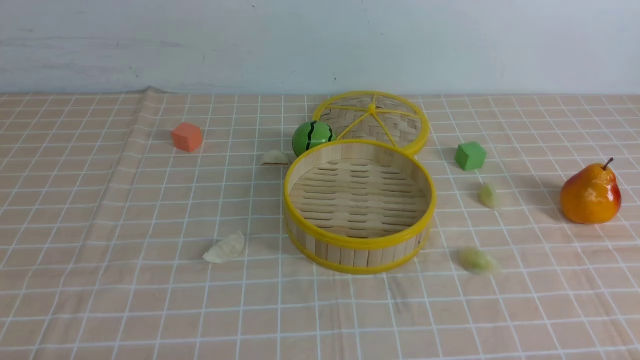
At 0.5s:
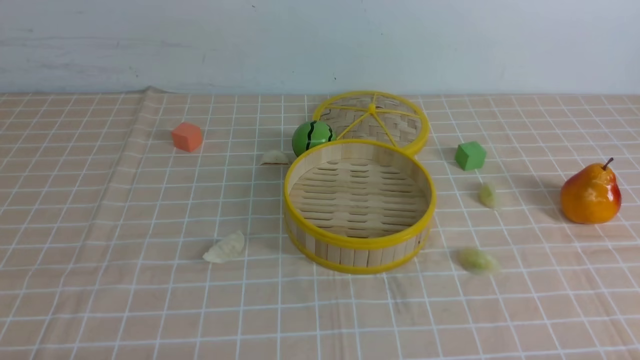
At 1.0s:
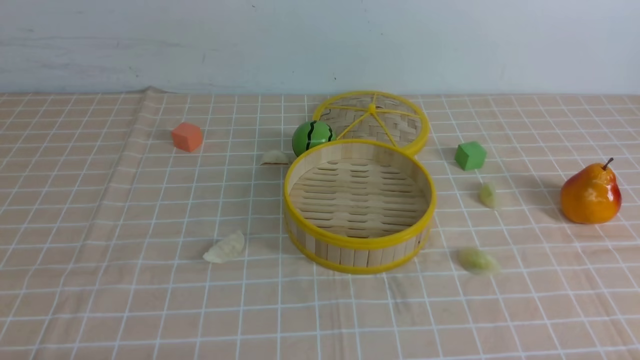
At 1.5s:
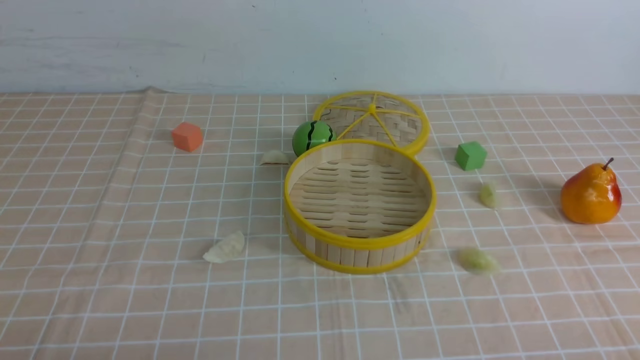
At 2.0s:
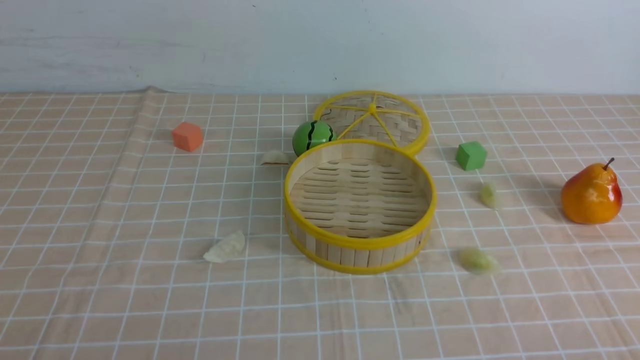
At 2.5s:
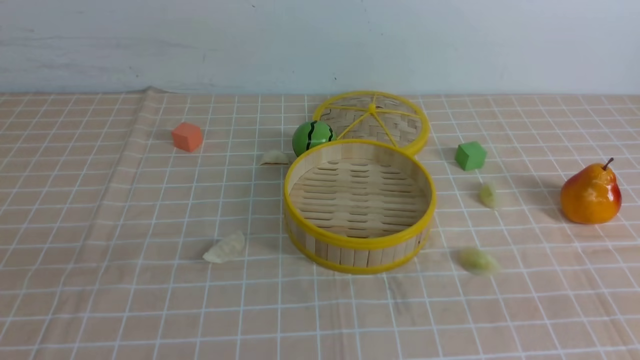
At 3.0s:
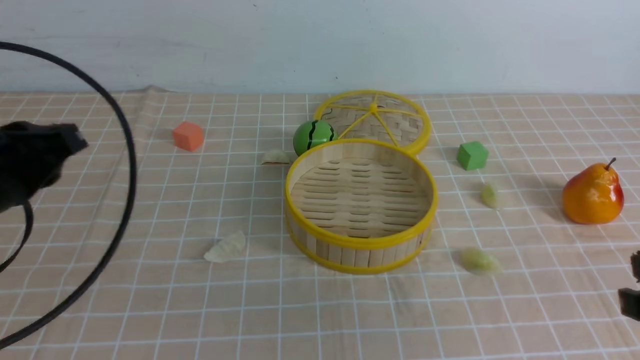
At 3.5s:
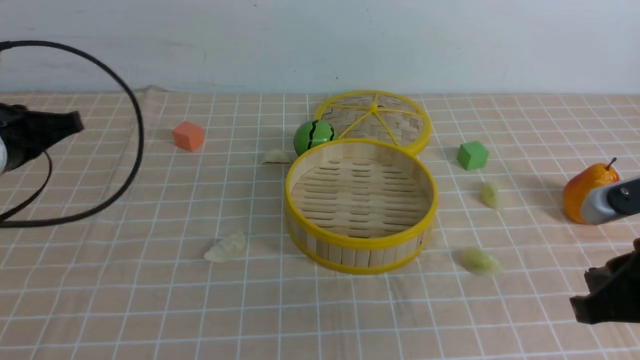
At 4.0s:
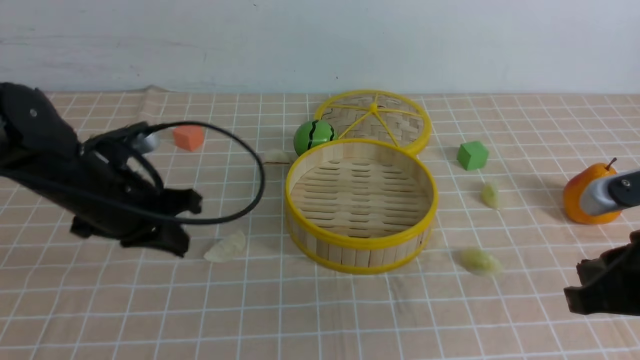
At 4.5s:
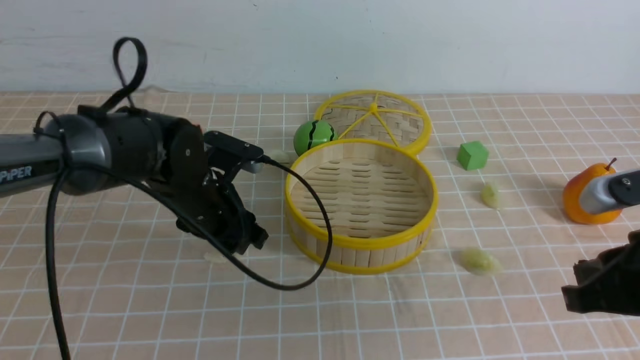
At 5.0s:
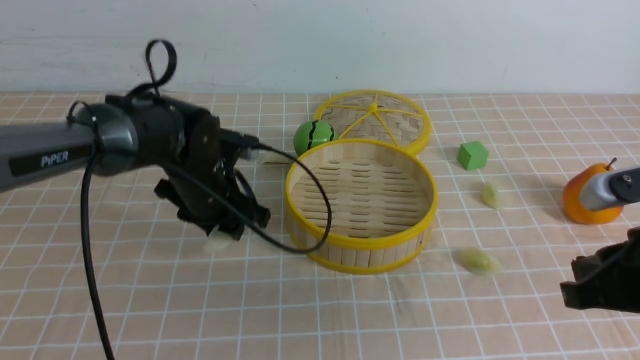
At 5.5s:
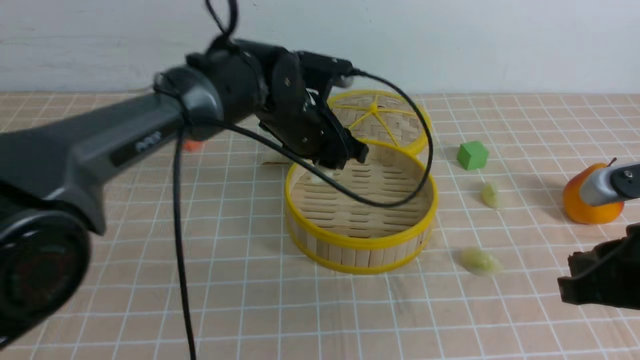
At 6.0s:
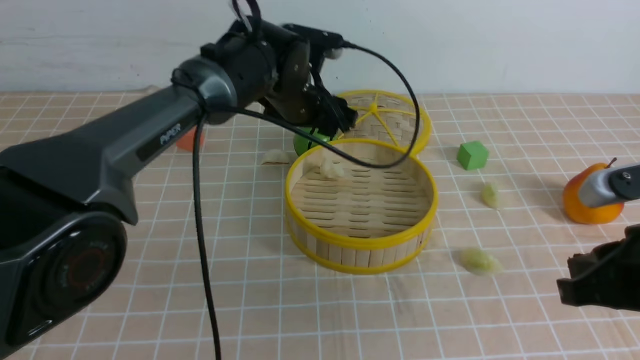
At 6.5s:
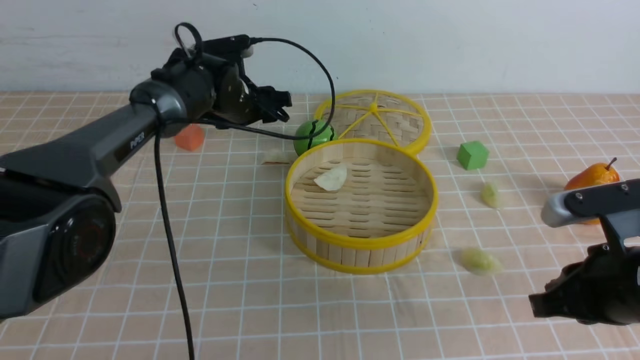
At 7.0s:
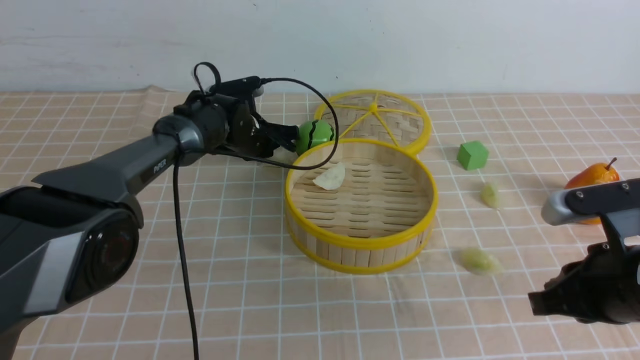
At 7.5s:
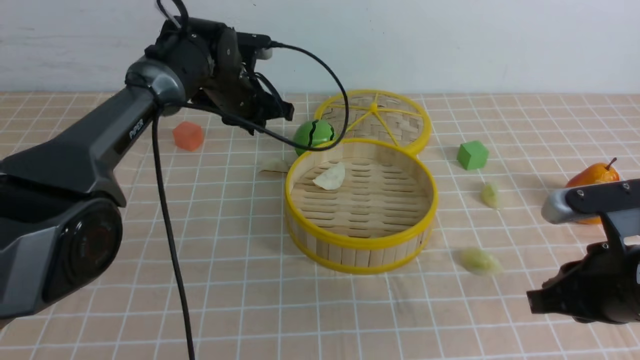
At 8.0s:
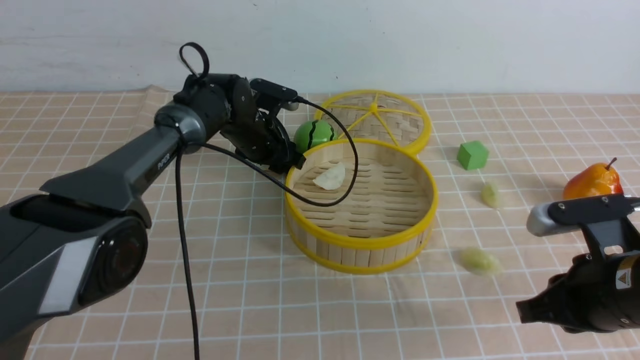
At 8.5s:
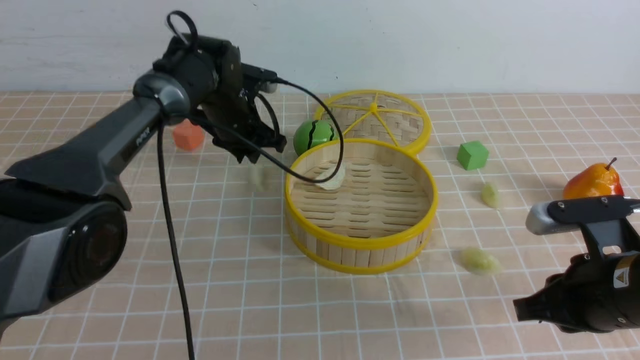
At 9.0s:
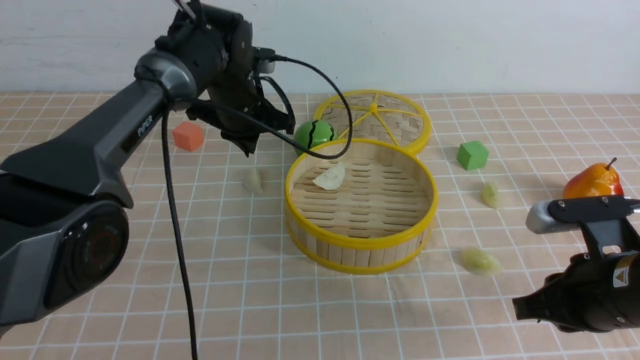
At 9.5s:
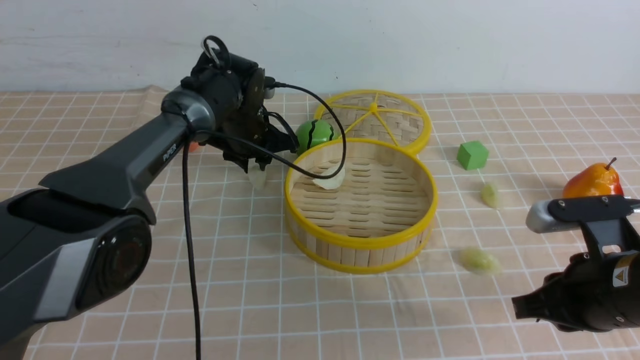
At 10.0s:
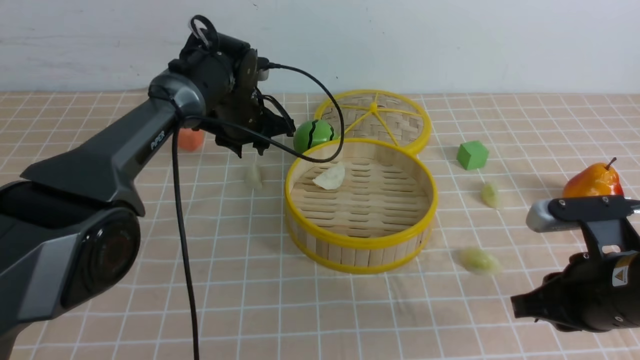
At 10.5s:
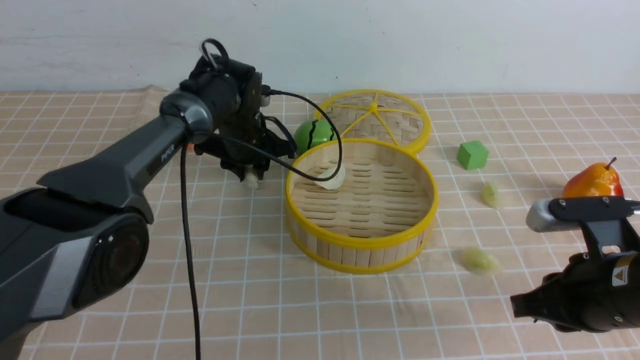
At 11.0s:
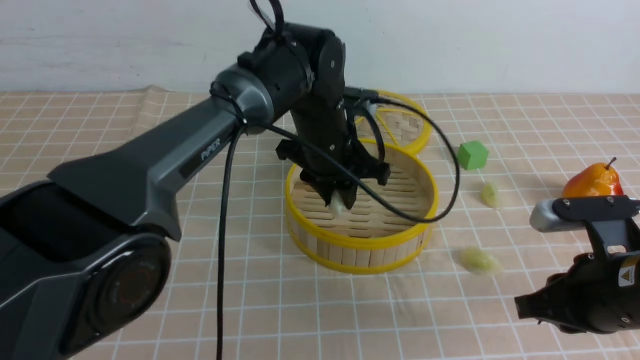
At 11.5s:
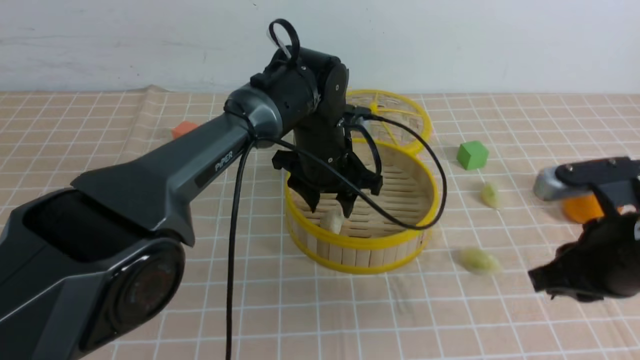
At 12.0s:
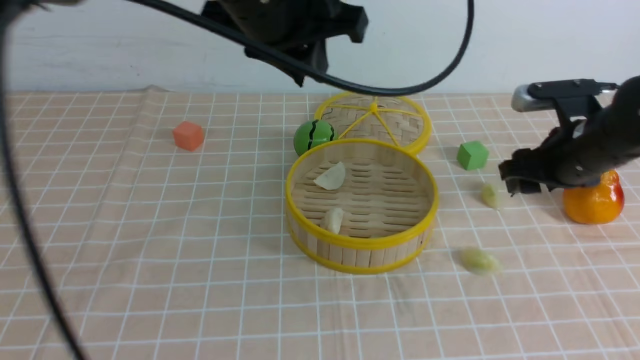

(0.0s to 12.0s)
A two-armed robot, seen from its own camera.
Task of the whole recording: put the dumplings into the steamer on the table with the brown tablecloth.
Step, 0.0s - 4.5s: use the left arm to grab a dumpling.
Step, 5.0s - 6.0s: use the left arm to put the dumpling into the steamer.
Step, 6.5s - 10.0s: use the left arm to grab a dumpling.
Step, 10.5s - 11.5s: use the left arm to put the dumpling into the steamer.
2.0s - 4.0s: The left gripper travels forward by some 25 cm, and closes up, while the right gripper heads forward, covering some 15 cm, and closes.
4.0s - 6.0s: The left gripper moves to the right and forward, about 25 cm, and opens.
6.0s - 8.0s: The left gripper goes up and down, roughly 10 cm each way, reversing 2 times, and closes, then opens again, while the right gripper changes place by about 5 cm.
8.0s - 10.0s: The left gripper closes.
10.0s - 12.0s: The left gripper travels upward and backward by roughly 25 cm. Meanwhile the right gripper shifts approximately 15 cm forward, and opens up.

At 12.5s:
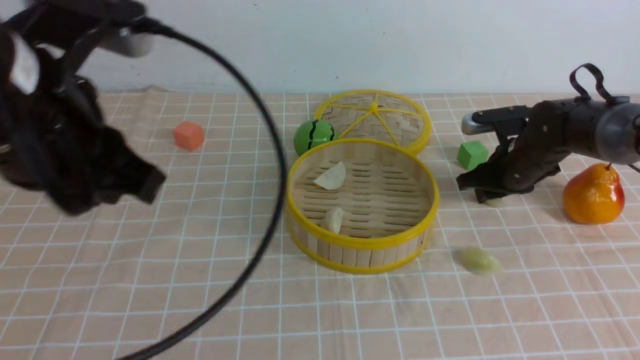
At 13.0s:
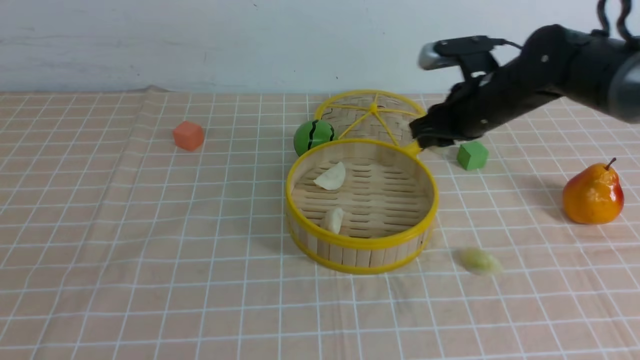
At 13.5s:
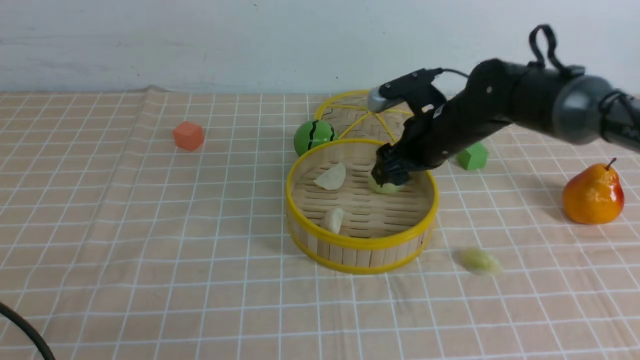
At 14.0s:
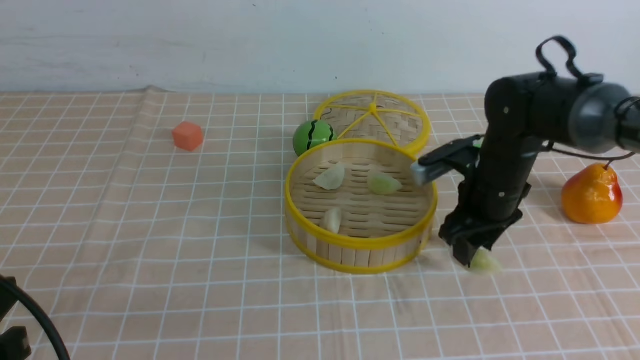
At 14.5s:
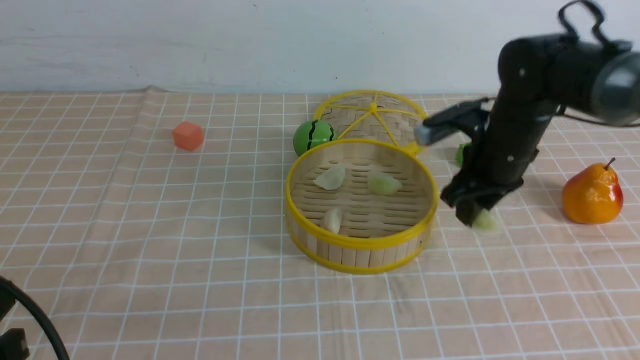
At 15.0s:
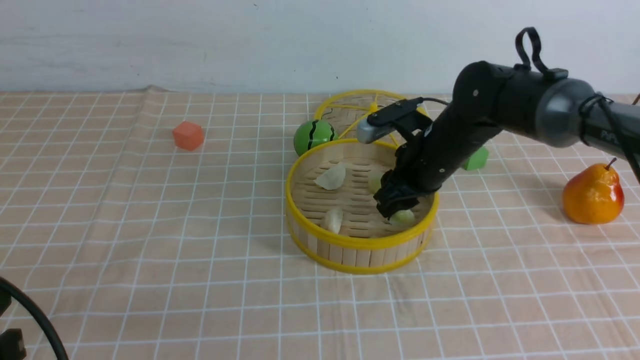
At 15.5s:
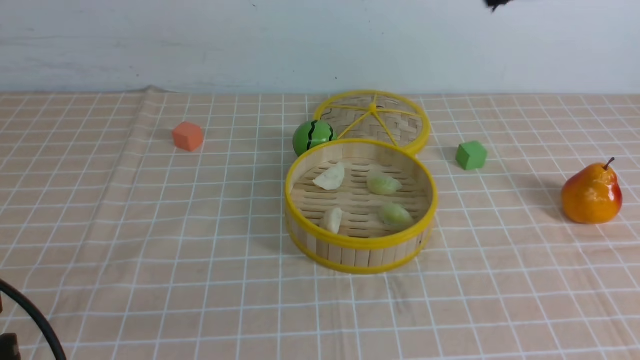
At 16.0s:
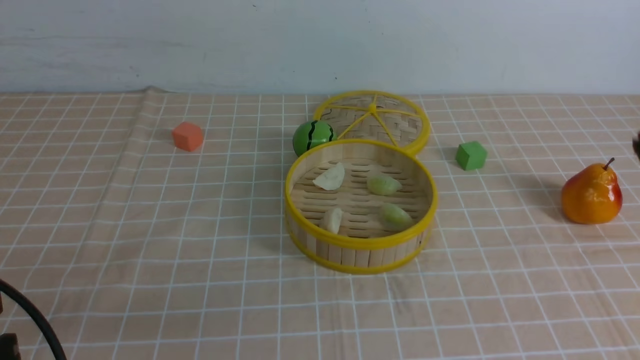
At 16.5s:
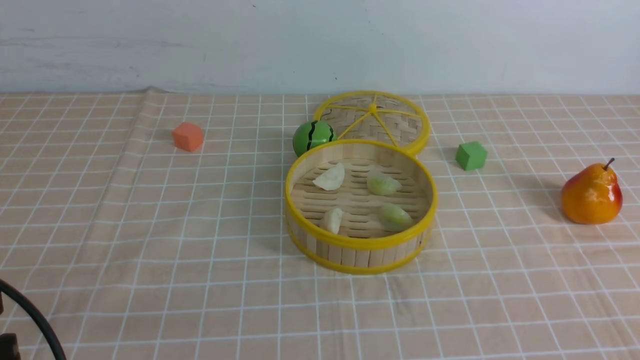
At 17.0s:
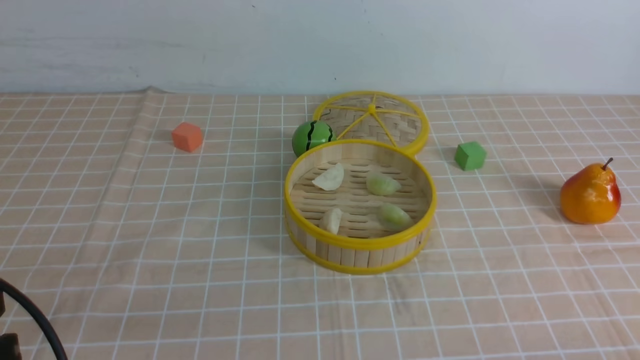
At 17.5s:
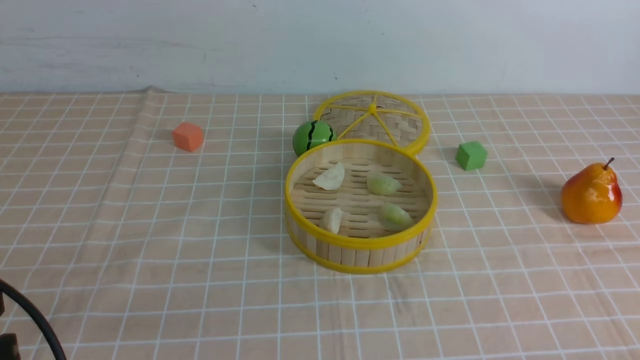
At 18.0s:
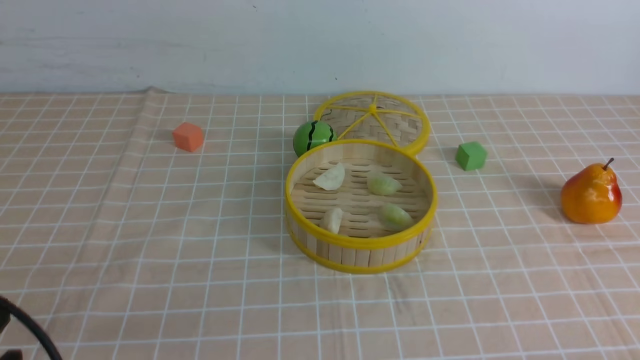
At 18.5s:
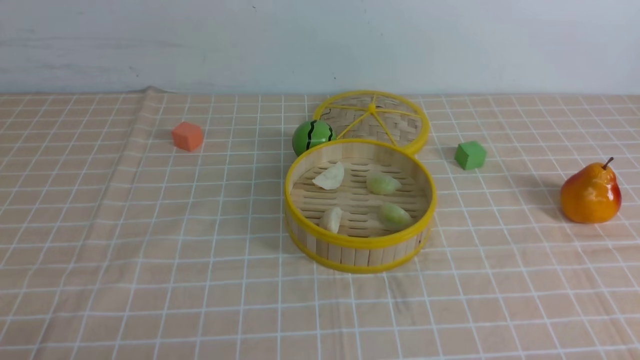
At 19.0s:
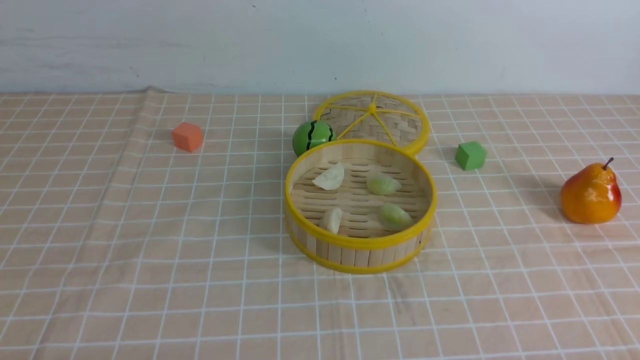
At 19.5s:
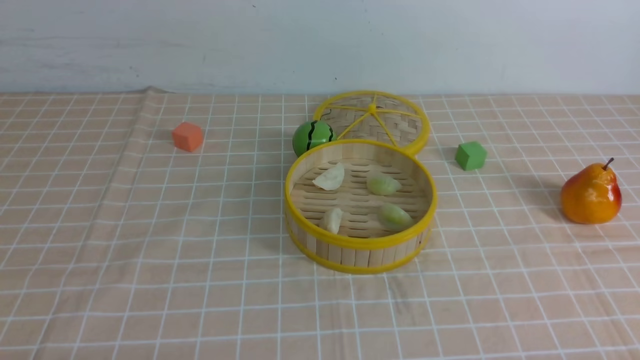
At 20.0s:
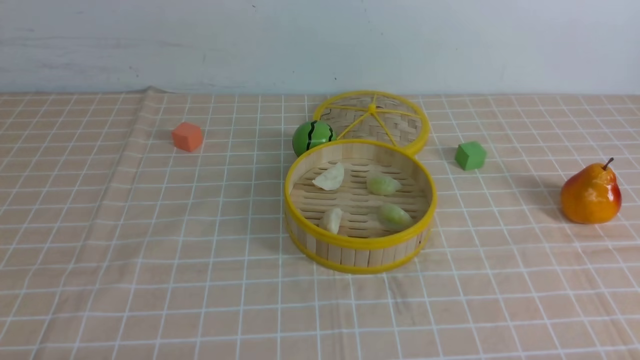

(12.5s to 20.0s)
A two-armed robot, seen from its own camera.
Task of the whole recording: put the dumplings into the steamer on the table with the brown tablecloth.
Step, 13.0s - 13.5s: use the right arm to put the dumpling into the steamer.
Step, 14.5s - 15.0s: use the right arm to put the dumpling into the steamer.
12.5s - 14.5s: The left gripper heads downward, backward and to the left, covering approximately 20 cm, while the right gripper travels to the left and backward by approximately 10 cm.
14.5s - 16.5s: The right gripper heads backward, covering roughly 30 cm, and closes its fingers.
18.0s - 20.0s: The left gripper goes about 10 cm downward, and closes its fingers.
